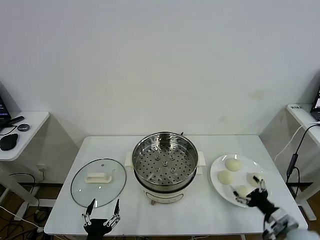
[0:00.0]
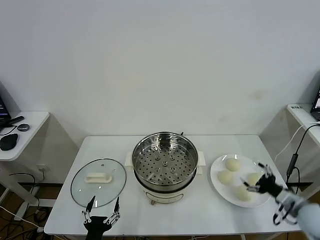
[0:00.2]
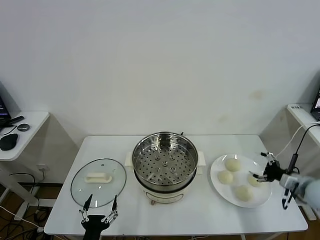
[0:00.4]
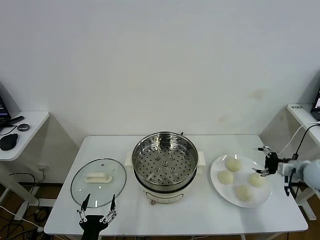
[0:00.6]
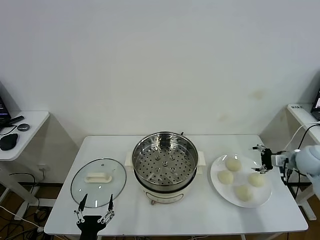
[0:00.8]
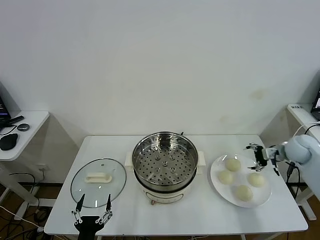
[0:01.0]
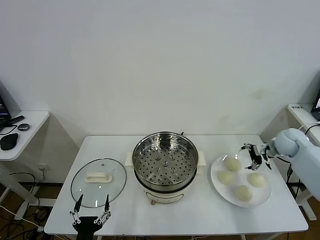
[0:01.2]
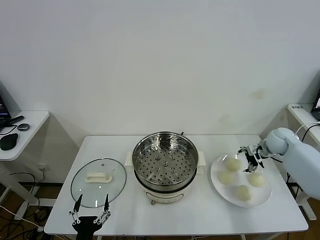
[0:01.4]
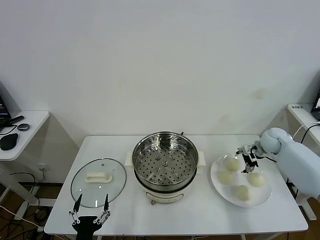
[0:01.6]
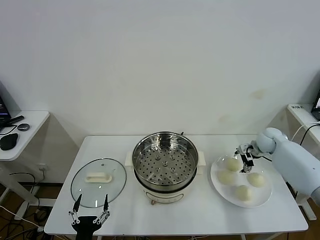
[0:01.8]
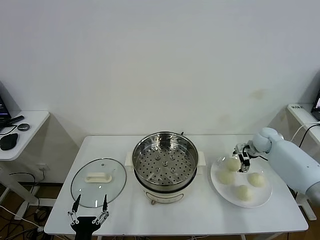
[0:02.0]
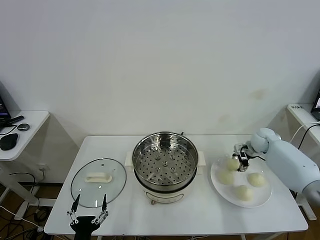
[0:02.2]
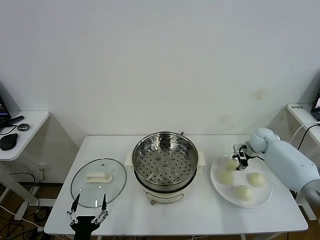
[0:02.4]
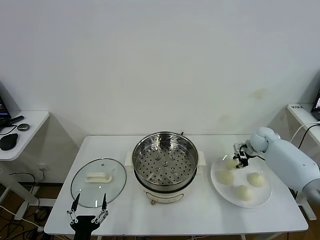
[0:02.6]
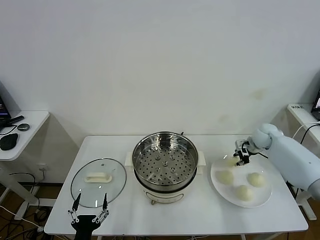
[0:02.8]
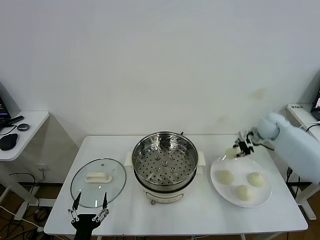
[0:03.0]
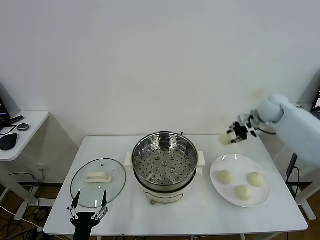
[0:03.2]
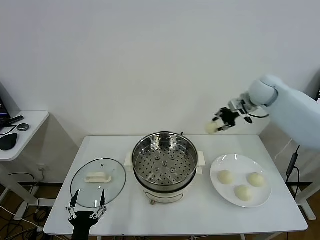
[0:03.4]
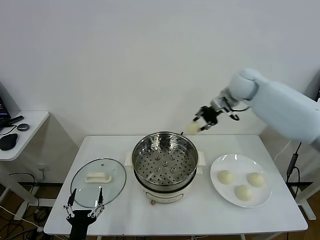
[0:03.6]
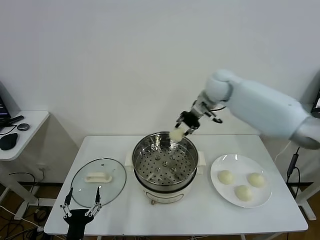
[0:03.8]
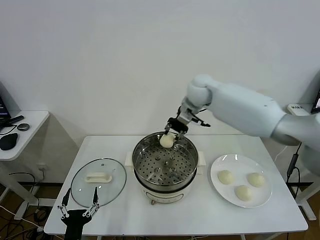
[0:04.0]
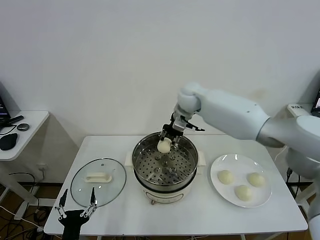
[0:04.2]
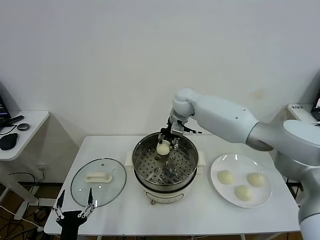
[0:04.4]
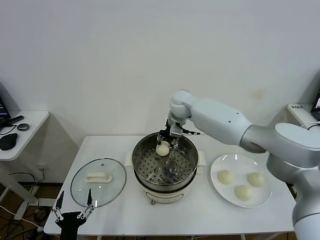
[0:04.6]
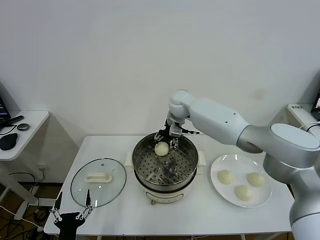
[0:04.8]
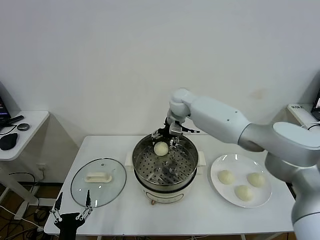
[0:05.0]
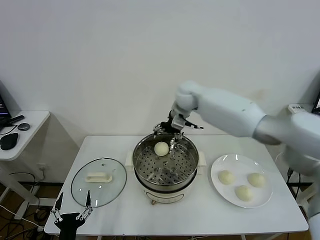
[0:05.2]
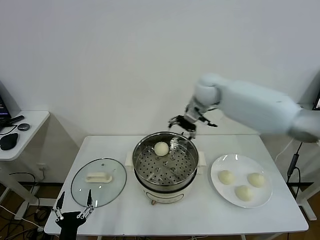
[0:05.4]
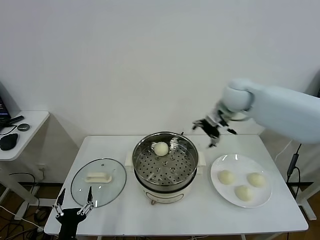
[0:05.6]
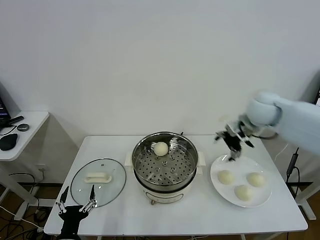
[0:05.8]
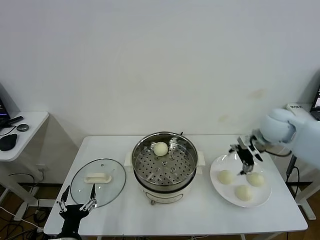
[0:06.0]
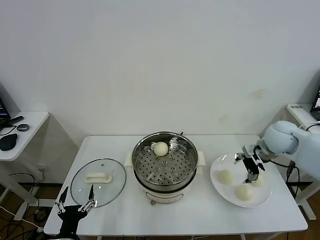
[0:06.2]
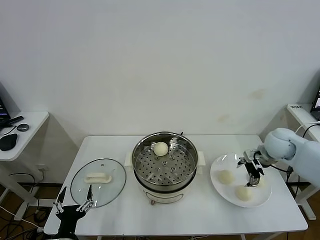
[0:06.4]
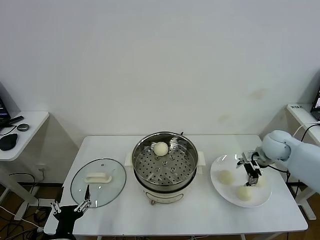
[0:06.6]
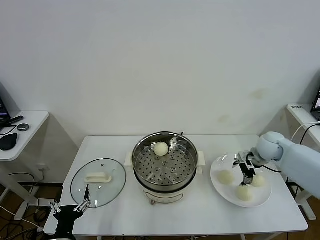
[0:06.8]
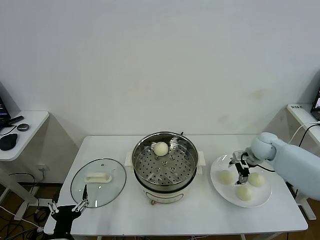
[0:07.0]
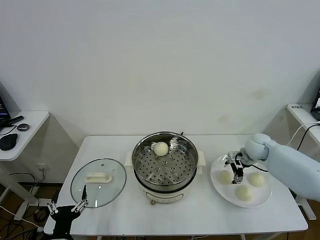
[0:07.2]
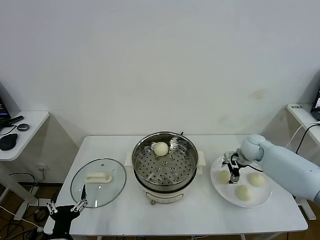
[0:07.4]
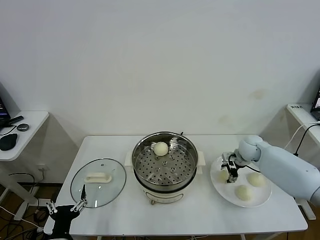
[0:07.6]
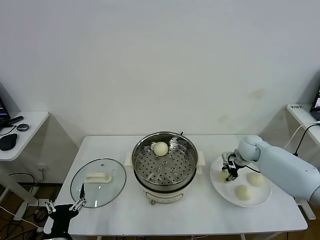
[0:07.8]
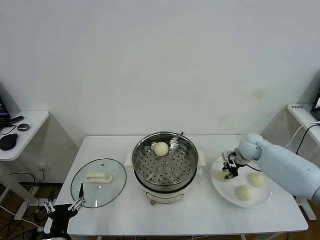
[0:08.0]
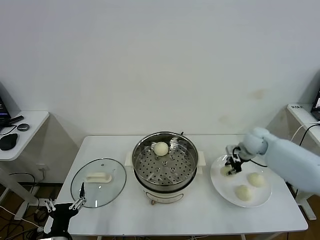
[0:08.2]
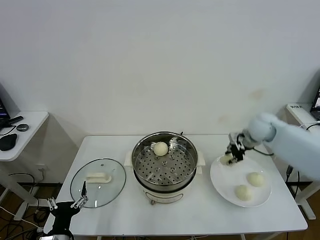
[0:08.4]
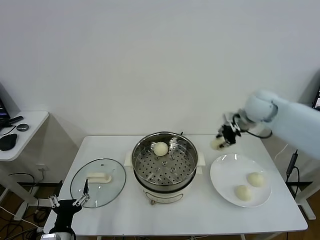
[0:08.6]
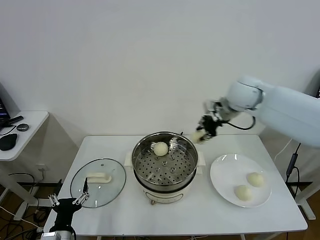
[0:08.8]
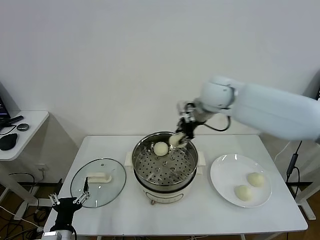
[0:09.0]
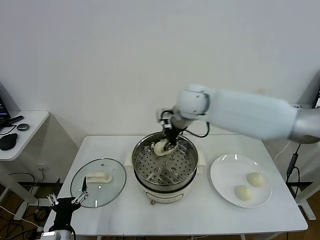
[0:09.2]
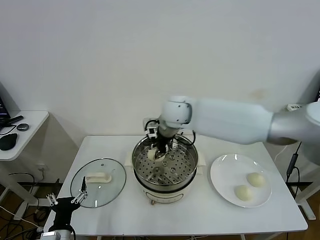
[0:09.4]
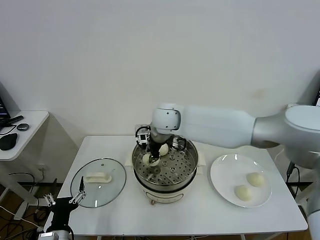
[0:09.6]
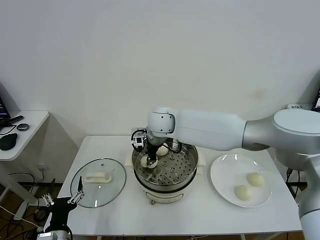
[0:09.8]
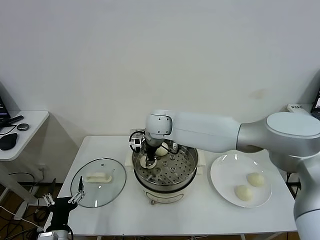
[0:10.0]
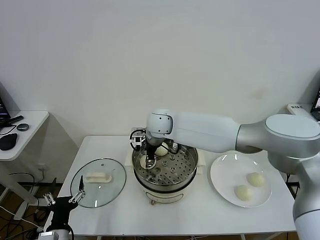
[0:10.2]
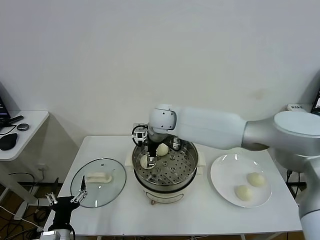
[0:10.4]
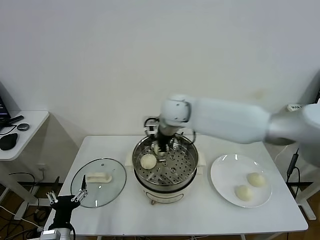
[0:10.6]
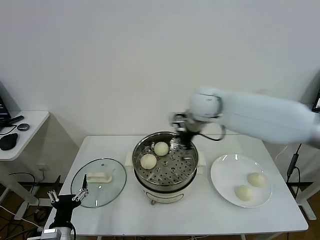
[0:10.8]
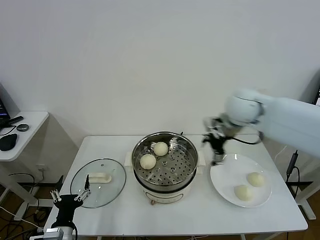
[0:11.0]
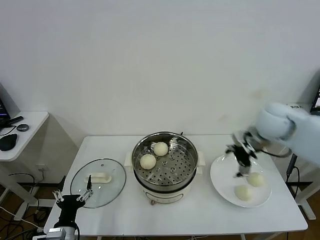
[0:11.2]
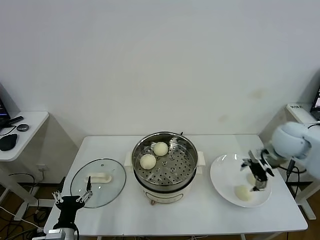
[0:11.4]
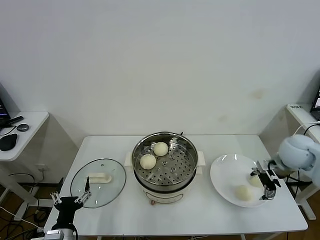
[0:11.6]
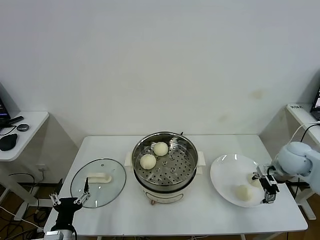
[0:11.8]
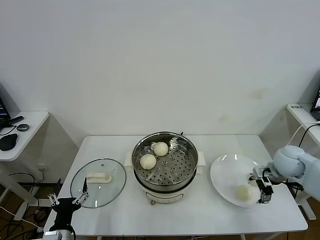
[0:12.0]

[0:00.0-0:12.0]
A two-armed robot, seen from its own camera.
Task of the whole recording: take steamed baozi put them in steamer.
Step, 0.0 to 2.4 s: Grasp the baozi in the plate with right gripper.
Step, 2.6 to 5.0 s: Place the baozi on the steamer with right gripper.
Step, 5.2 to 7.8 s: Grasp the baozi in the plate with right gripper.
Step, 8.0 to 10.2 s: Place the baozi on the steamer with right gripper.
1.6 to 3.0 s: The right gripper travels upward by roughly 5 cm, and closes.
3.0 to 4.4 s: The right gripper goes approximately 35 cm to the left.
4.4 to 6.0 s: The right gripper is displaced to the right and backward by roughly 30 cm, and opens.
6.0 to 7.6 s: The right gripper moves downward, about 15 cm.
7.6 to 9.0 s: The right gripper goes about 30 cm upward and to the left, and closes its fingers.
9.0 to 10.4 s: The right gripper goes approximately 20 cm to the left and downward, and opens up.
10.4 to 12.0 s: The right gripper travels to the right by some 40 cm.

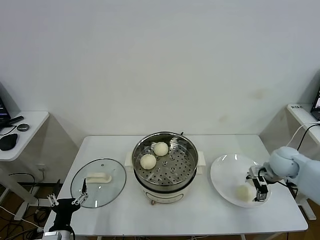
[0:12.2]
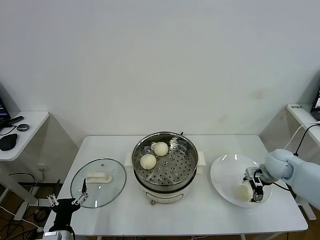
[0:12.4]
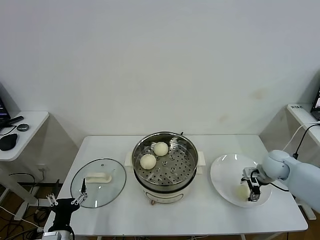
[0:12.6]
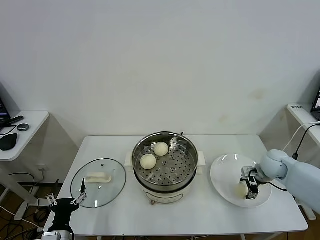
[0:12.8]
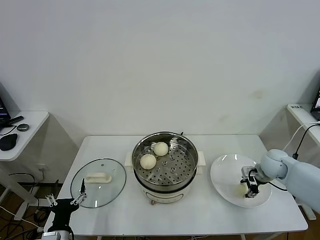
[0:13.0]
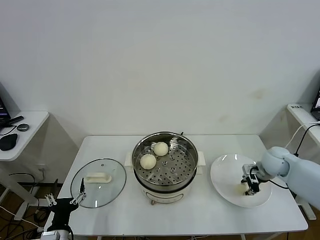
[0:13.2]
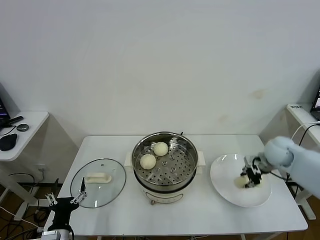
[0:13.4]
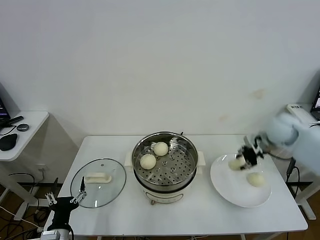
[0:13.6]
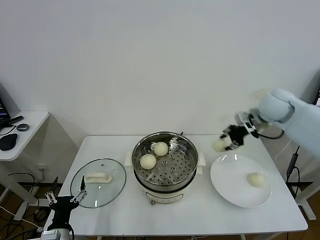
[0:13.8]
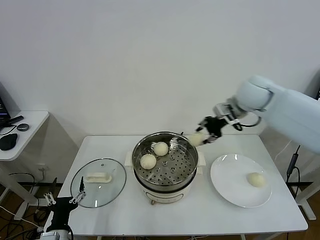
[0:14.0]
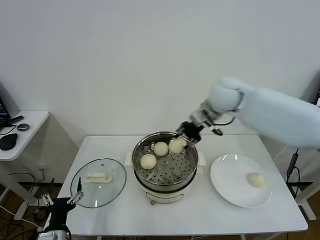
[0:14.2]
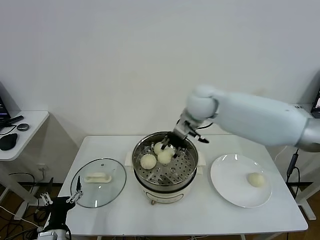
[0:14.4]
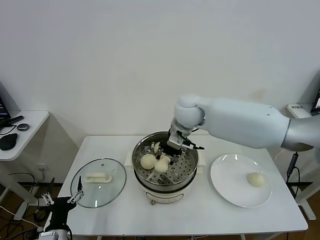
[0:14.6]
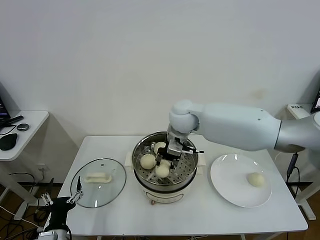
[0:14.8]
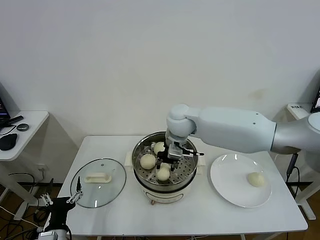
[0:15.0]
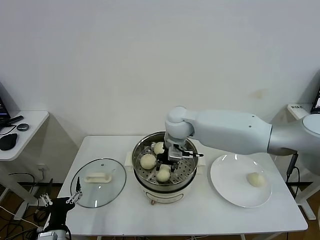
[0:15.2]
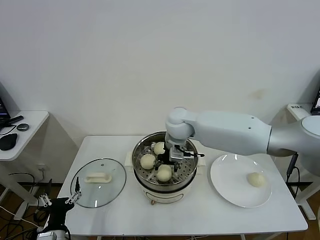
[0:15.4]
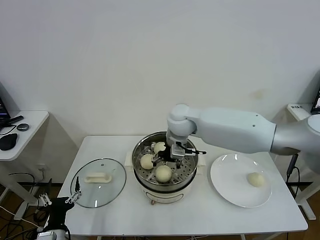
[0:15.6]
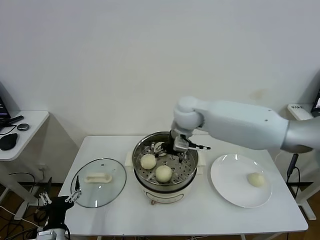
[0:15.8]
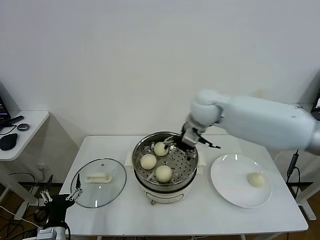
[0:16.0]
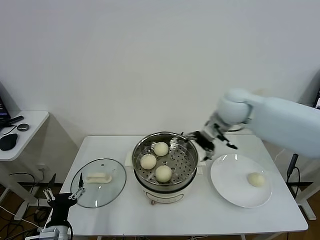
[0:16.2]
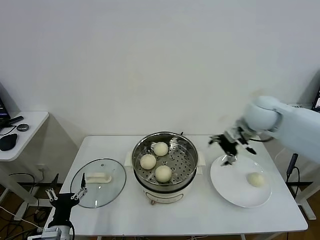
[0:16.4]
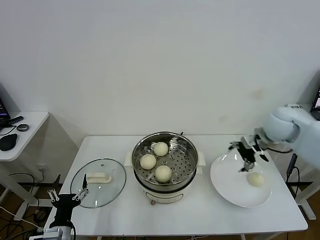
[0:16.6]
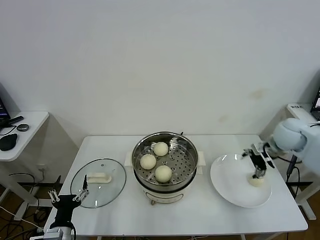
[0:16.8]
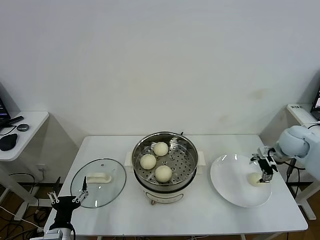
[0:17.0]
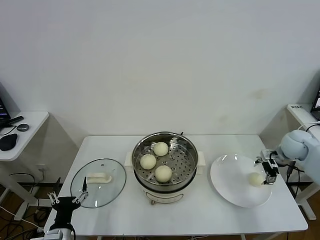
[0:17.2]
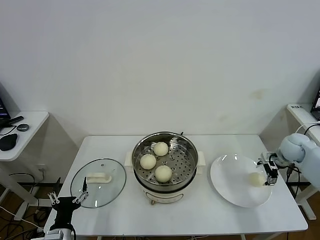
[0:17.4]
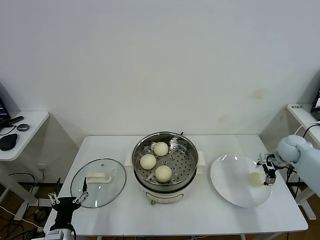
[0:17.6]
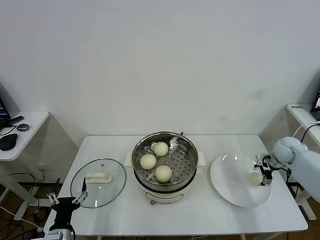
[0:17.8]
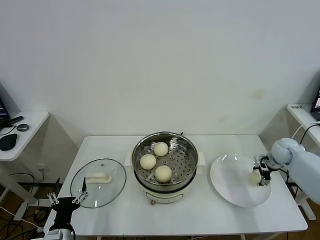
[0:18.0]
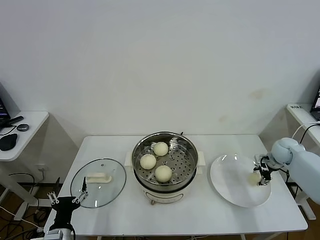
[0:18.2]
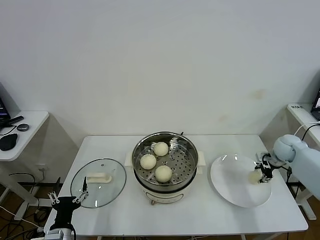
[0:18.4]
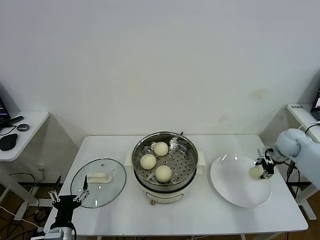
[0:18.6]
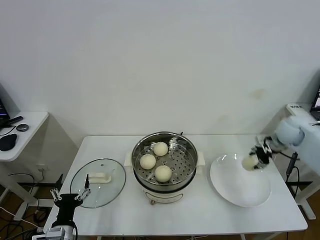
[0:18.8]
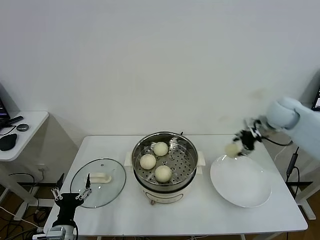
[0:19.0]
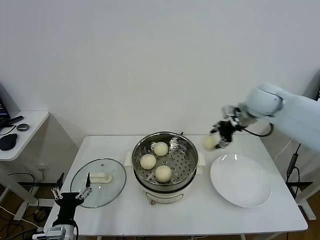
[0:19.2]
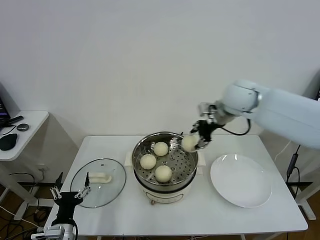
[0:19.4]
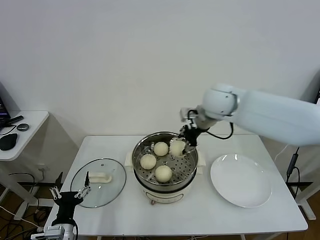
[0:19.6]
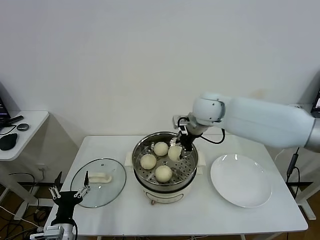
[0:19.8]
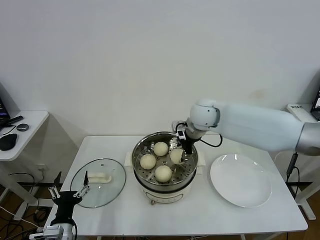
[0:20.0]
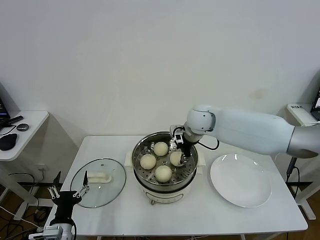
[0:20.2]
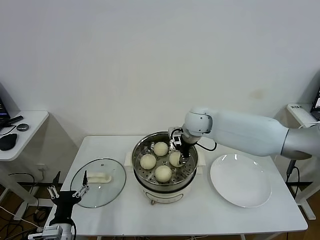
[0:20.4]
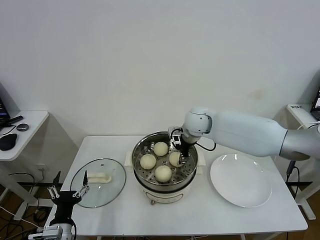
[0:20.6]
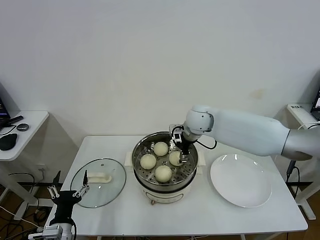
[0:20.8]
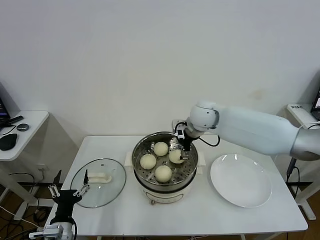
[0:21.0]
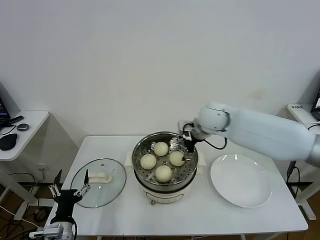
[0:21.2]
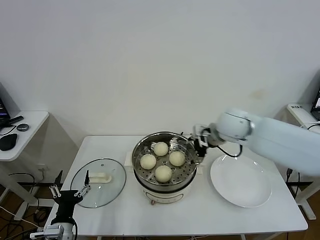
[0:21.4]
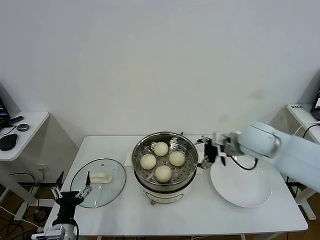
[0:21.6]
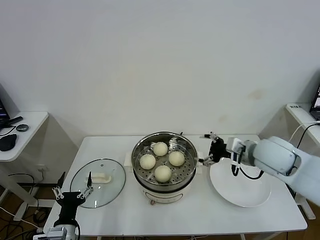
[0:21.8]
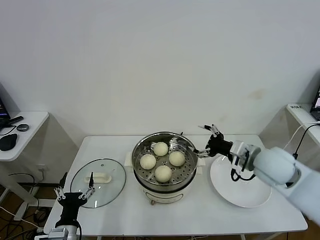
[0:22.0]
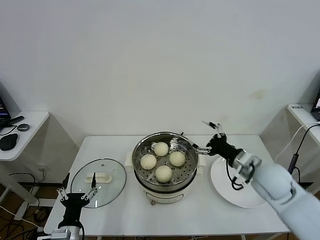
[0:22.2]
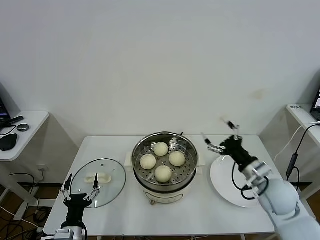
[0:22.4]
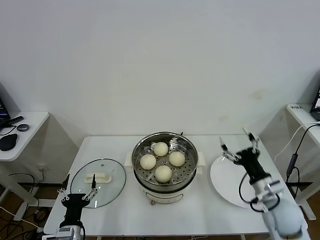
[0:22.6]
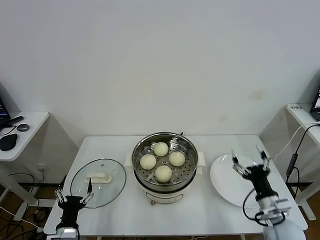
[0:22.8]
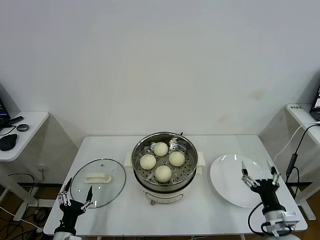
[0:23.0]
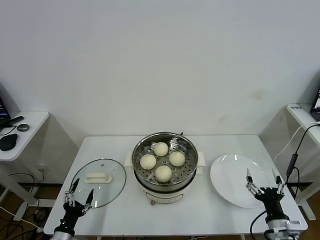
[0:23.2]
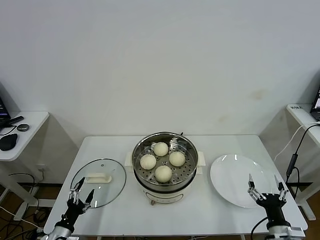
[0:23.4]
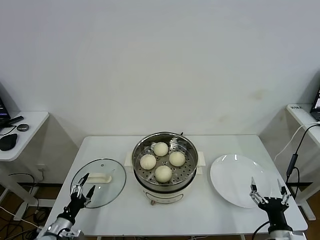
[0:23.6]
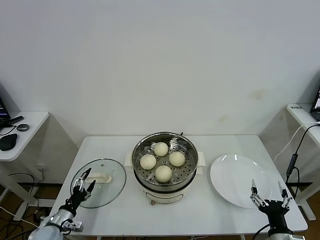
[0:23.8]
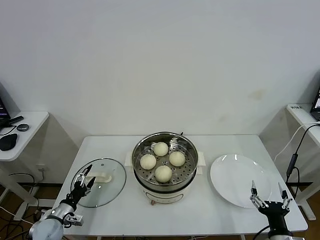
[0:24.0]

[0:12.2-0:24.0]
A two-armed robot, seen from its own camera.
Task of the whole recording: take steamed baozi put them in steamer.
Step, 13.2 to 15.6 s: Place the baozi on the steamer with right gripper.
Step, 15.8 to 18.2 s: Grasp the baozi in the plate with right gripper.
Step, 18.4 to 20.8 s: Place the baozi on the steamer with right gripper.
12.2 to 13.6 s: The right gripper heads upward and forward, covering some 10 cm, and closes.
13.6 to 15.2 s: The right gripper travels to the left by about 35 cm.
15.2 to 16.6 s: The right gripper heads to the right, covering approximately 30 cm, and opens up.
16.6 to 18.2 s: The right gripper moves downward and to the right, some 20 cm, and closes its fingers.
18.2 to 19.6 s: The right gripper goes roughly 40 cm to the left and upward.
19.6 to 21.0 s: The right gripper is displaced downward by roughly 10 cm, and opens up.
21.0 to 22.6 s: The right gripper heads backward, to the right and downward, covering some 35 cm.
22.6 to 24.0 s: The left gripper heads to the left, forward and downward, covering about 15 cm; the right gripper heads backward and downward, covering some 15 cm.
